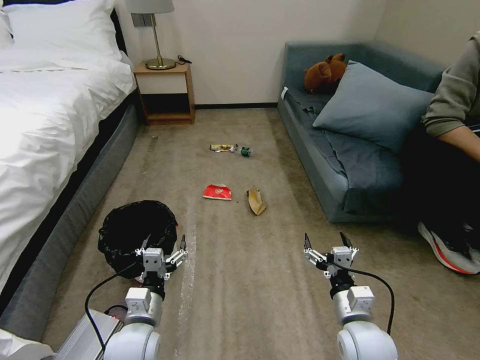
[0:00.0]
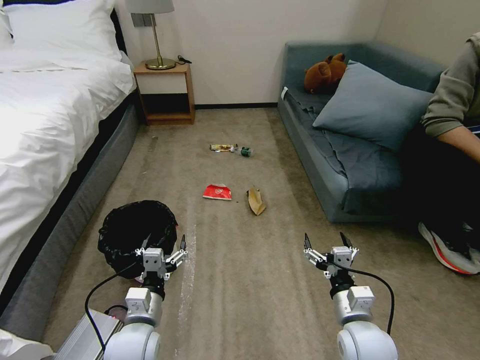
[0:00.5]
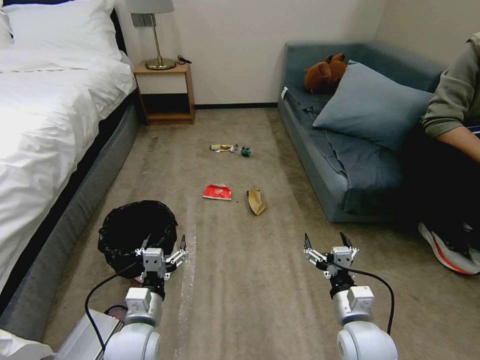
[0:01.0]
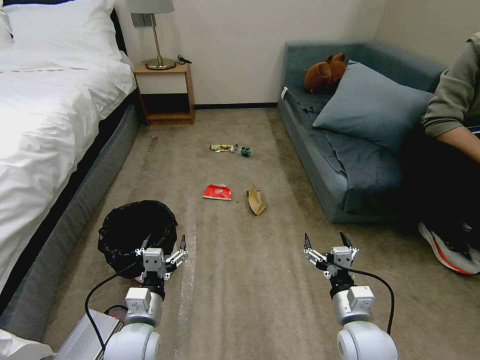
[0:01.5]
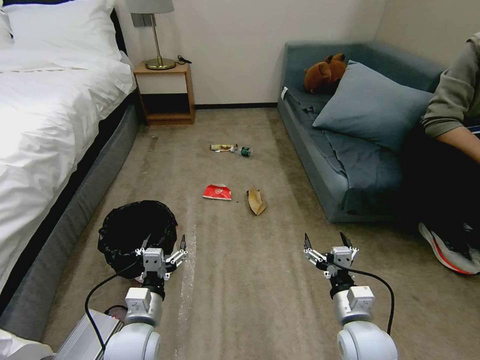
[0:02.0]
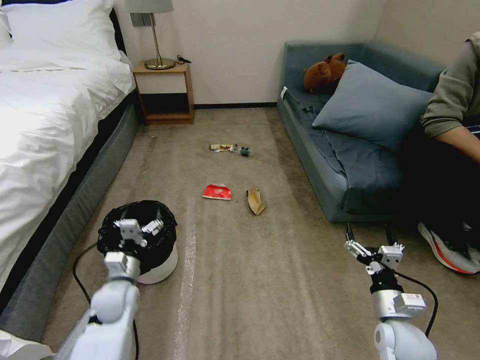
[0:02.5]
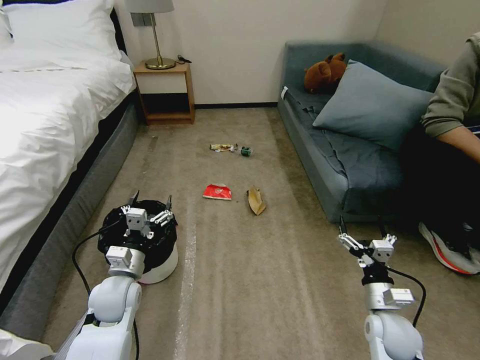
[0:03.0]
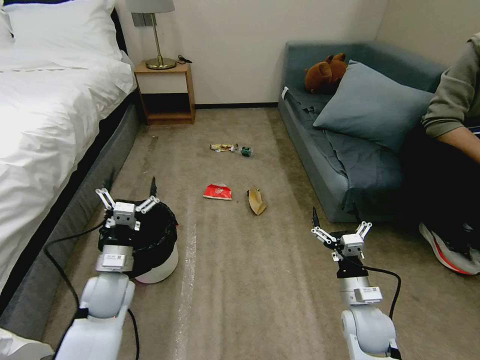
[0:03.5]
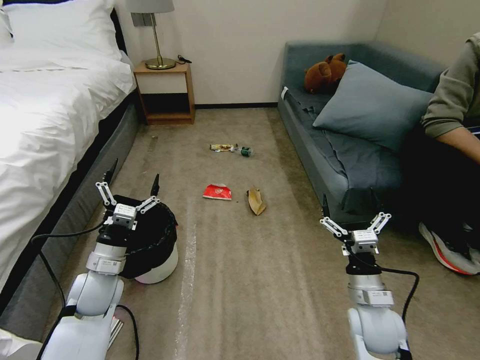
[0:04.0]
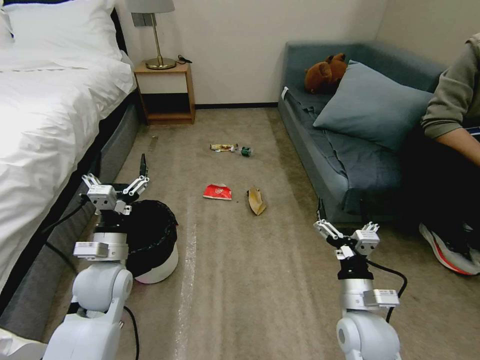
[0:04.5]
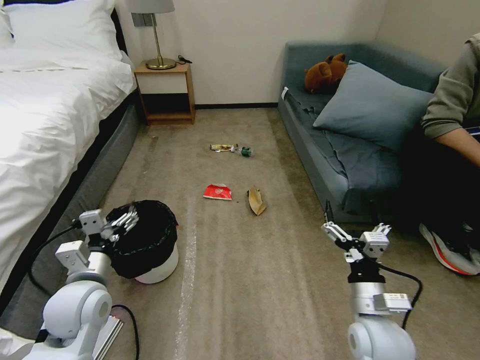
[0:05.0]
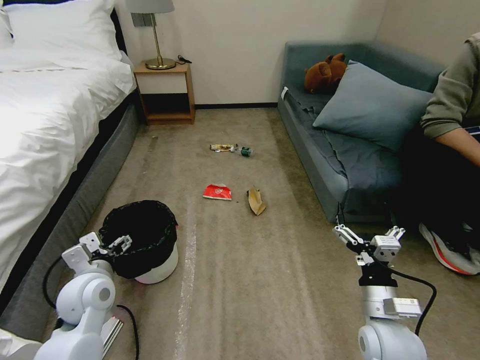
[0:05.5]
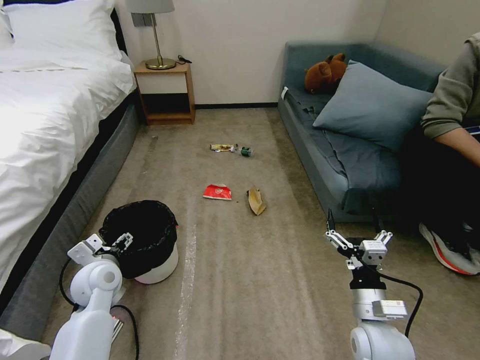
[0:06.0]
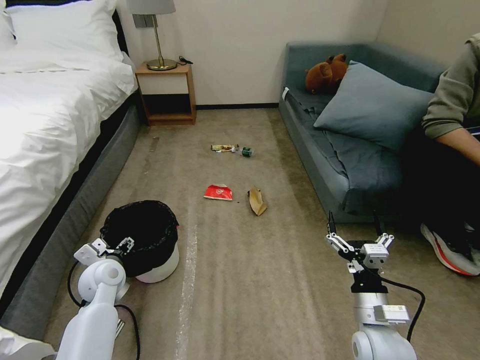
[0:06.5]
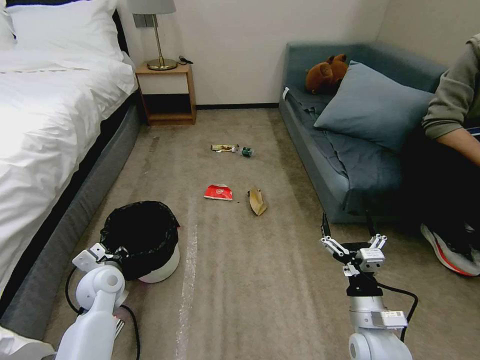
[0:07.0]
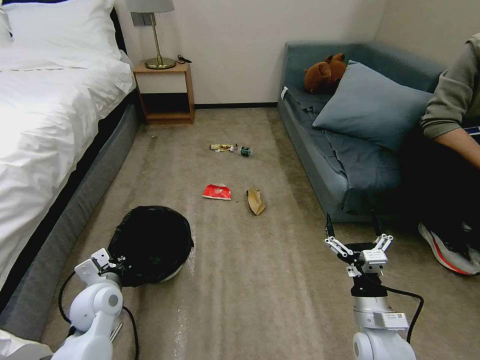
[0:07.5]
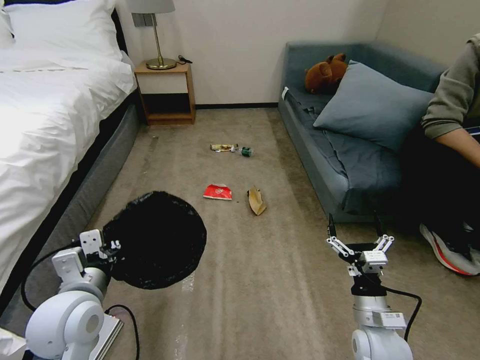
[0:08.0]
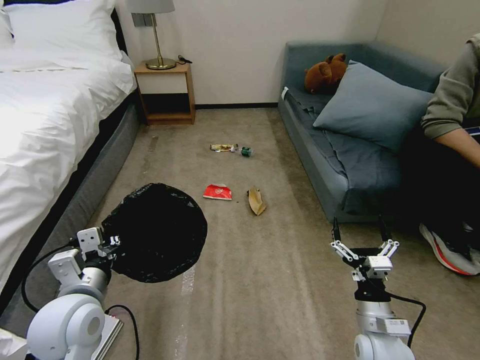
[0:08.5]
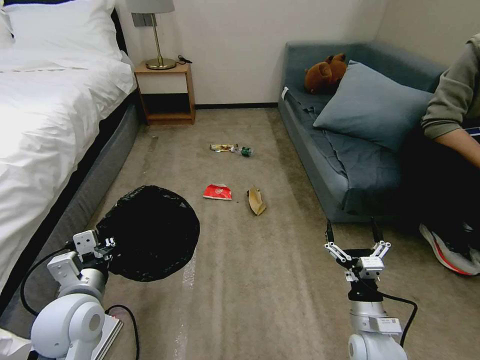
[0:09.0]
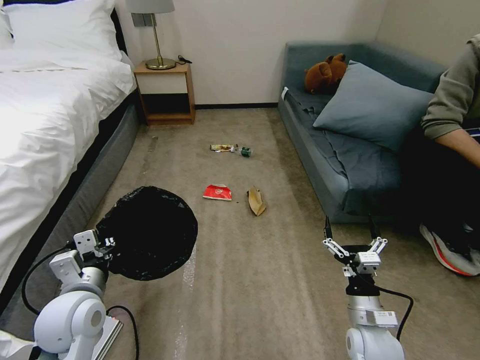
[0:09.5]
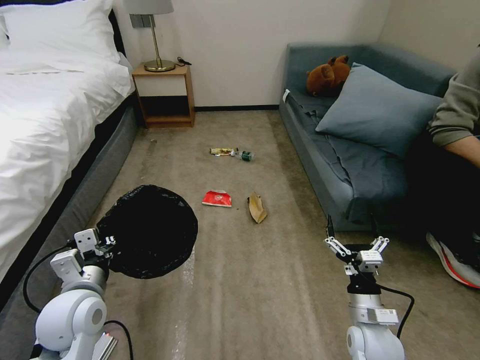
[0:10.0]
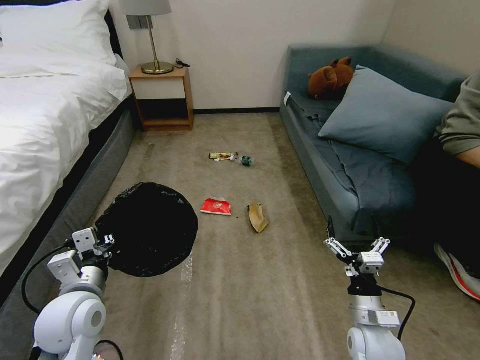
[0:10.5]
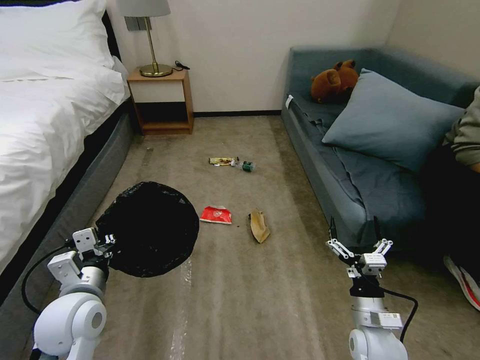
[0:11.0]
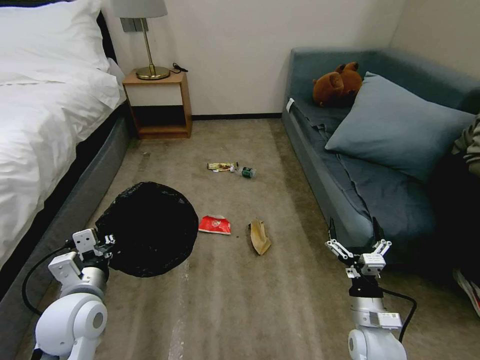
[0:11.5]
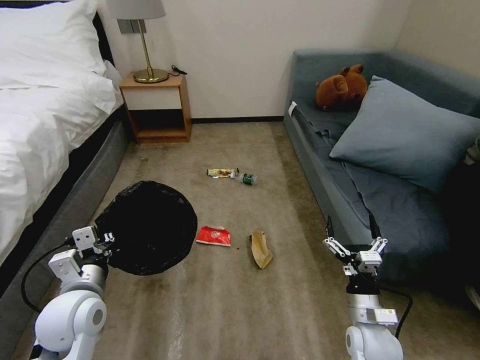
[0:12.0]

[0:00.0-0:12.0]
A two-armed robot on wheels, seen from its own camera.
Task of the whole recording: Pick up the trash bin, then pick up the garbage on the floor and place it into the trash bin.
2.0 to 4.0 s: The right gripper moves approximately 10 cm to the right and comes back. The left gripper is displaced to the left and forward by some 15 cm.
6.0 to 8.0 s: The left gripper goes some 10 cm backward and upward, and closes up.
8.0 to 10.0 s: The grippers move only a little.

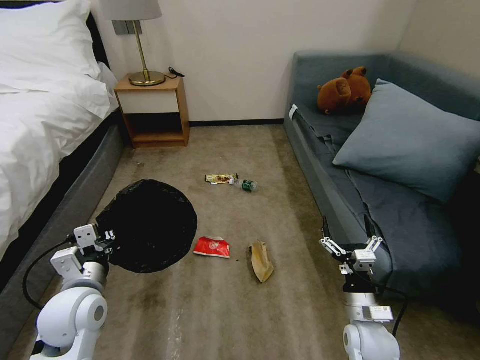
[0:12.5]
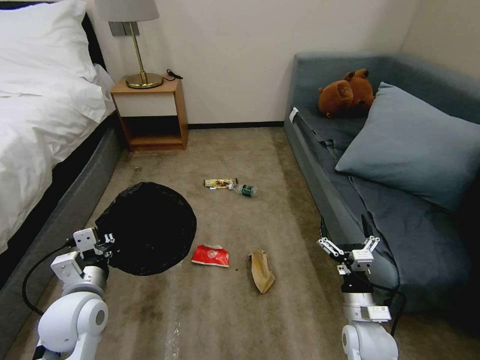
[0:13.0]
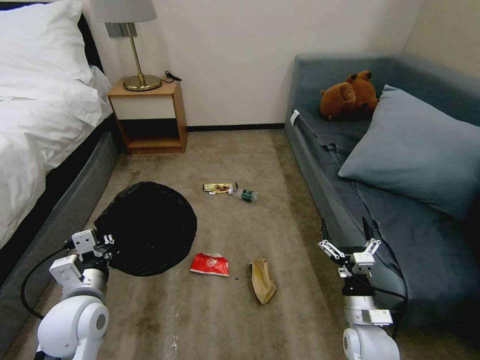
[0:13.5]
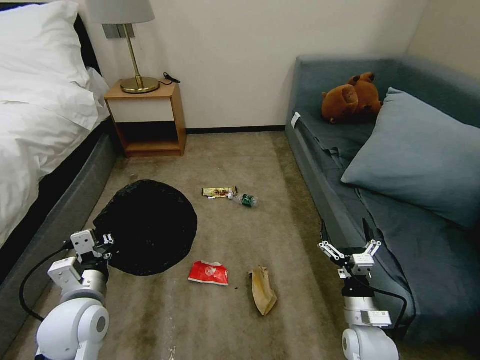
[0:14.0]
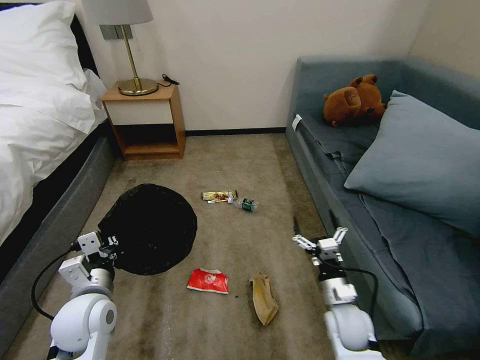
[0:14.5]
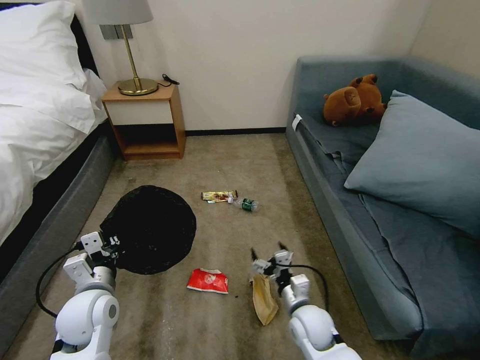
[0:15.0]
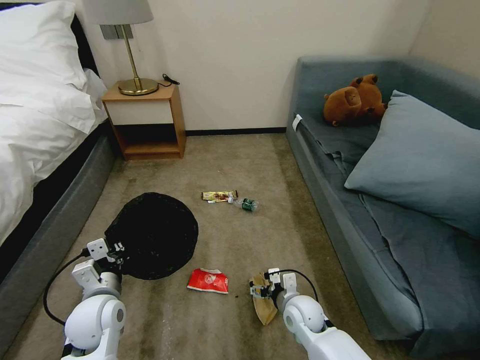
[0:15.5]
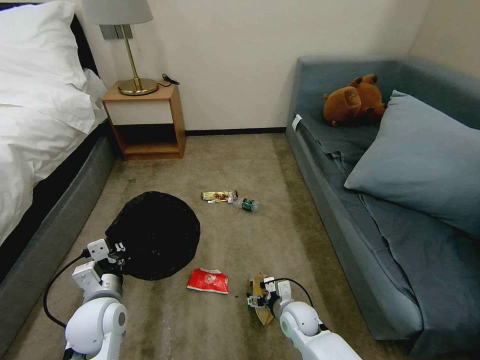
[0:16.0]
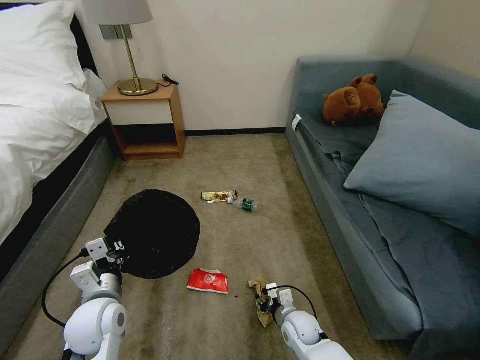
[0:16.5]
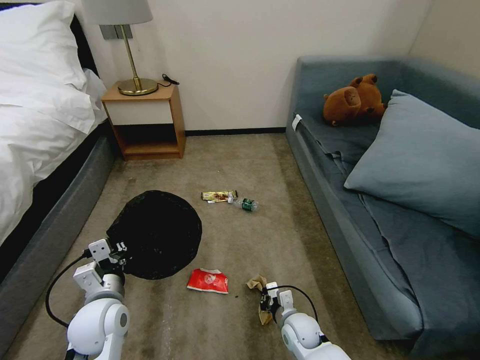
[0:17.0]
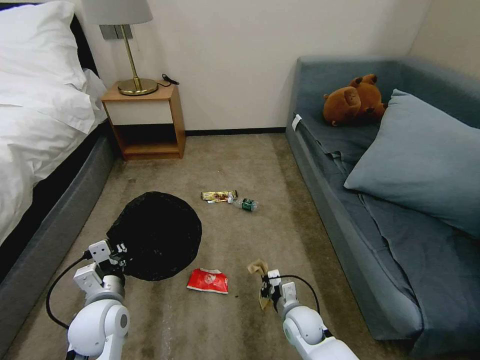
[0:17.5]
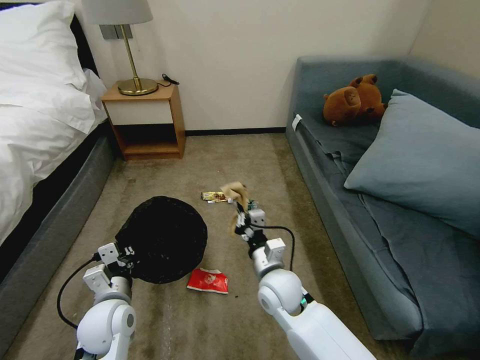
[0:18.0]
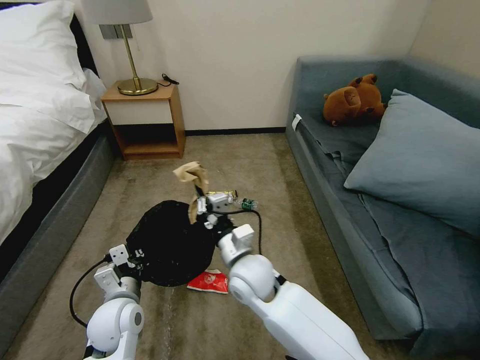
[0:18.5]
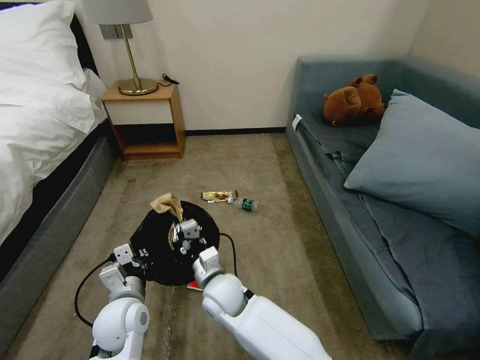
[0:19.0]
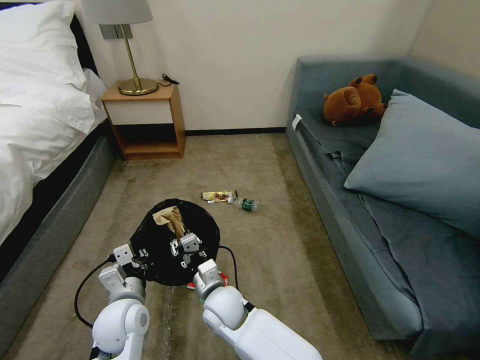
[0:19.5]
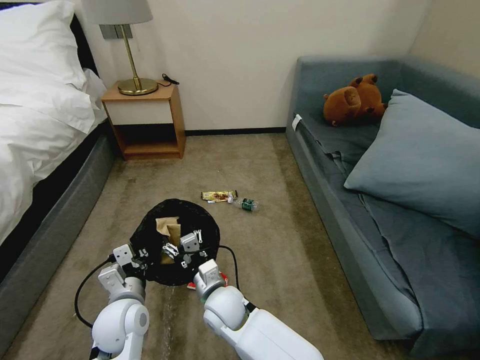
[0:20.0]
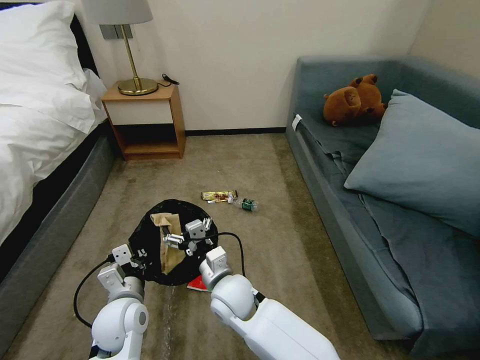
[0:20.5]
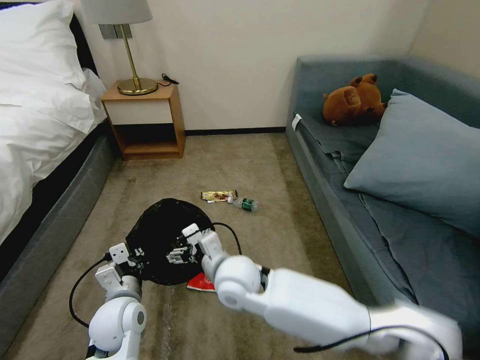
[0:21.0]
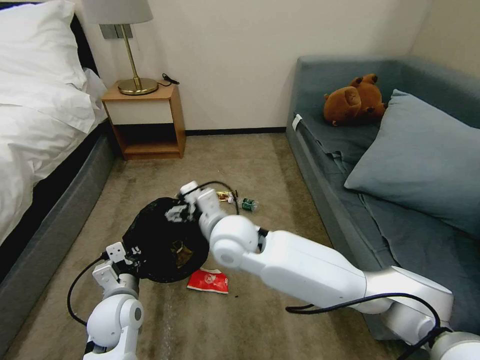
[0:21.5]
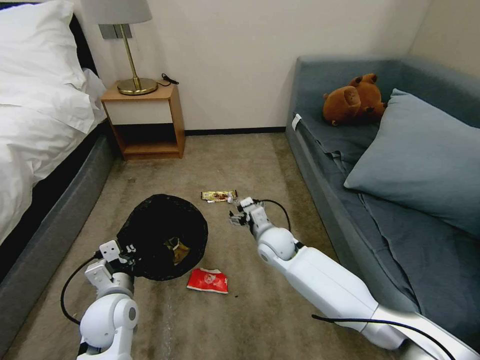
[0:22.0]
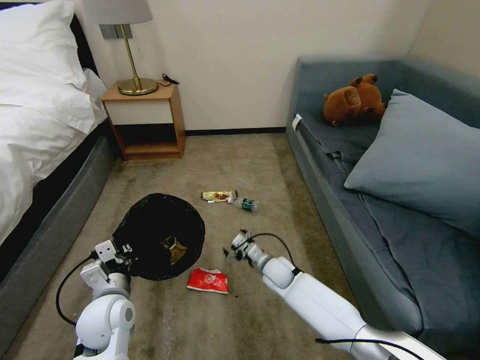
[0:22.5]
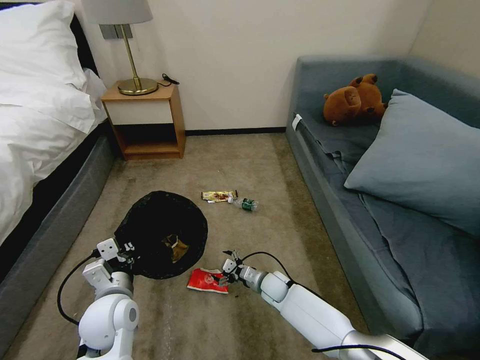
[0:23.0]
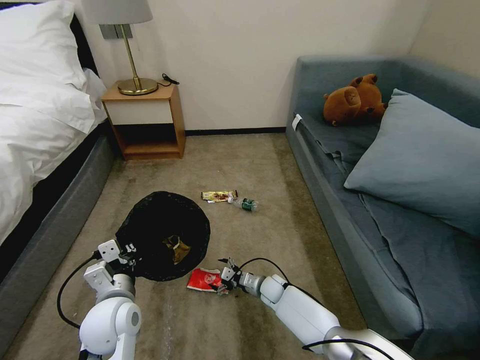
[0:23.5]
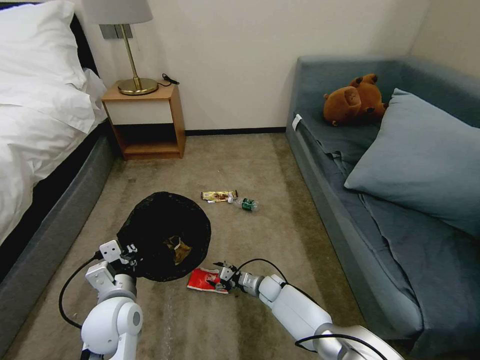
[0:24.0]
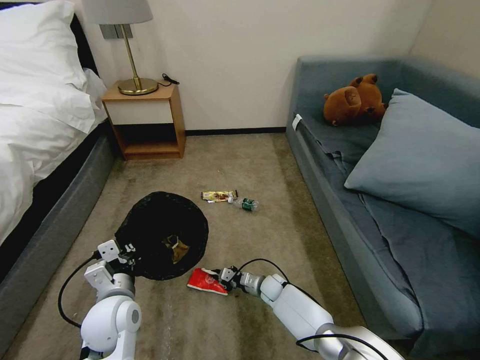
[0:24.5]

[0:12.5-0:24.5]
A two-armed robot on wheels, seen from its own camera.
Task of the whole recording: Pick up the trash bin, then pick up the garbage on the floor and place it into the trash bin.
12.5 to 14.5 s: The right gripper shifts by some 5 cm.
14.5 to 16.5 s: The right gripper heads downward and to the left, covering approximately 15 cm, and closes.
16.5 to 18.5 s: The right gripper is displaced upward and to the left by roughly 30 cm, and closes.
18.5 to 20.5 s: The right gripper moves downward, approximately 5 cm, and opens up.
20.5 to 22.5 s: The right gripper goes about 20 cm to the right, downward and forward.
22.5 to 24.5 s: The right gripper moves downward, approximately 10 cm, and closes its fingers.

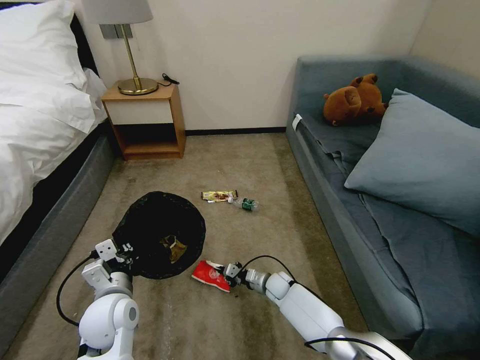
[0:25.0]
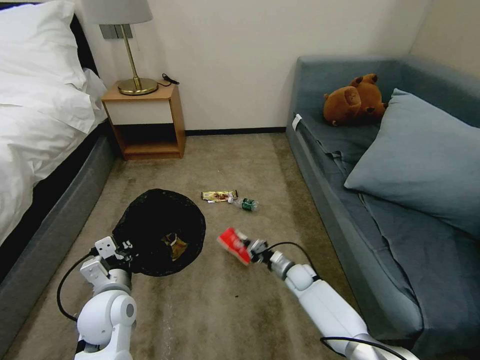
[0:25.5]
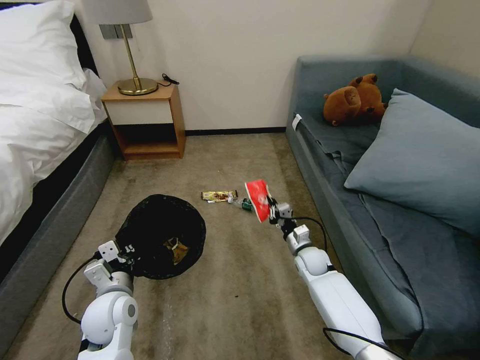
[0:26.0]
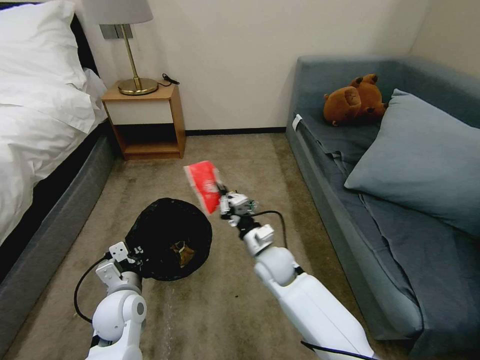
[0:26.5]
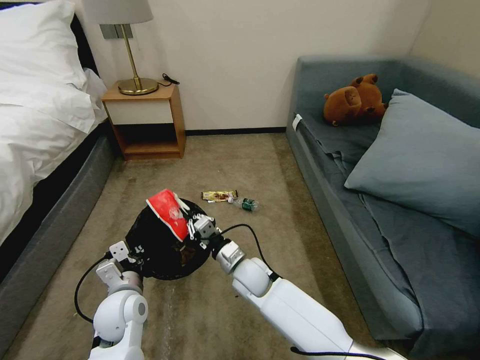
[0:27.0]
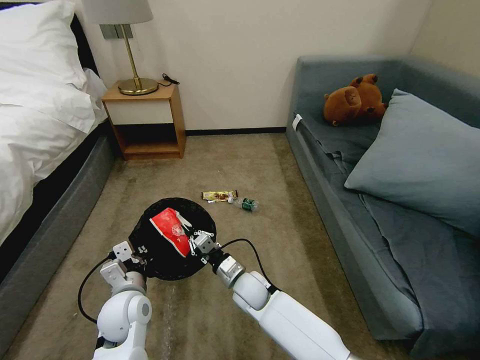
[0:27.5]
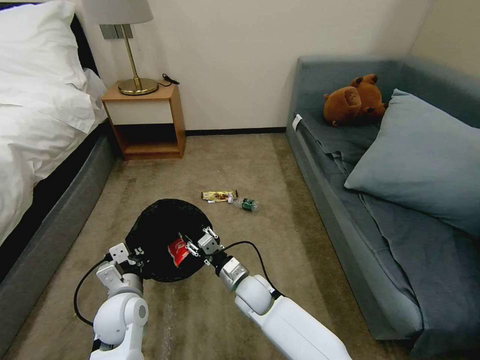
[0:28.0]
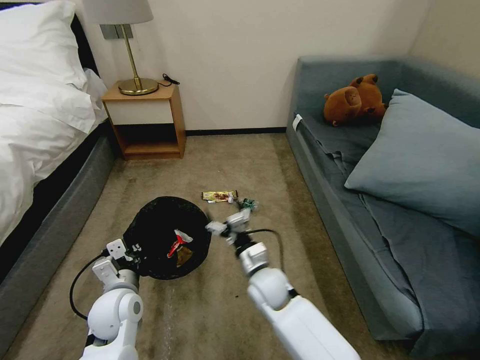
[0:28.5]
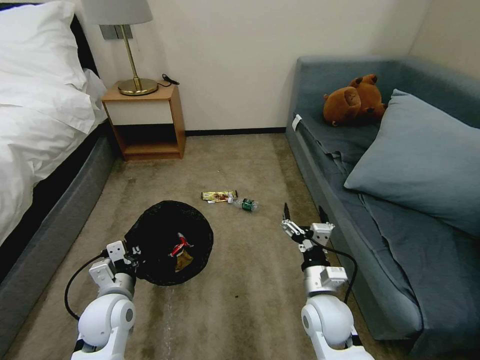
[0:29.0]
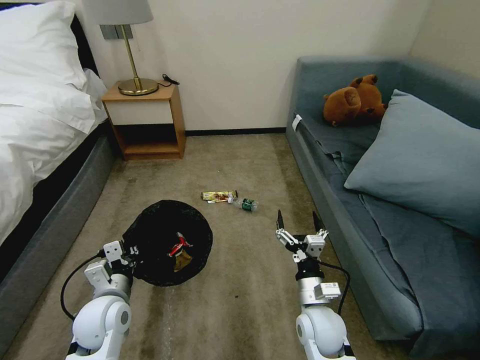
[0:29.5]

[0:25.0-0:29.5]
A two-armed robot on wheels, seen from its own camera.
Task of the whole recording: Pick up the trash bin, then pick up the garbage on the floor and place it into the trash bin.
25.0 to 27.0 s: The right gripper is displaced upward and to the left by roughly 20 cm.
27.0 to 29.5 s: The right gripper moves to the right and backward, roughly 20 cm, and opens its fingers.
